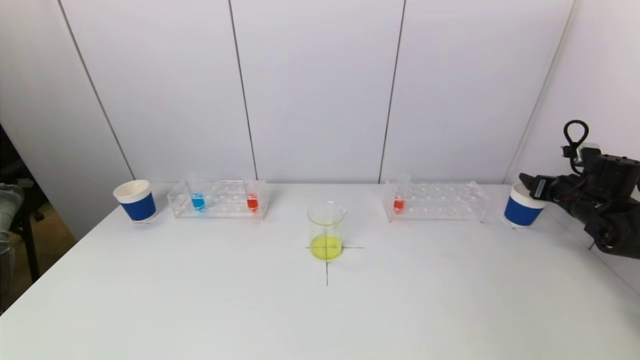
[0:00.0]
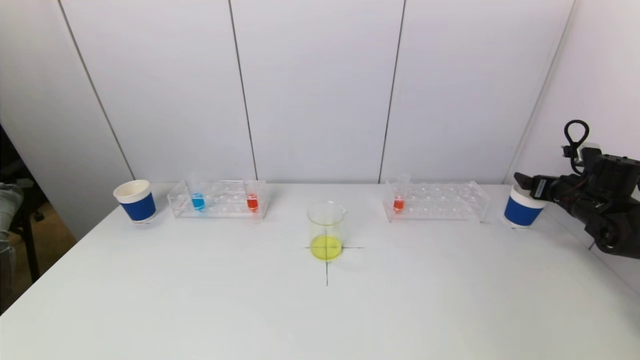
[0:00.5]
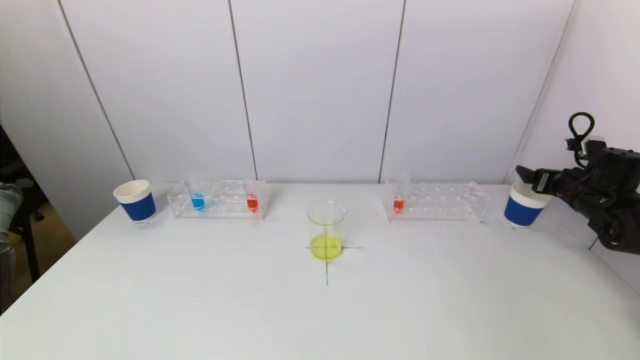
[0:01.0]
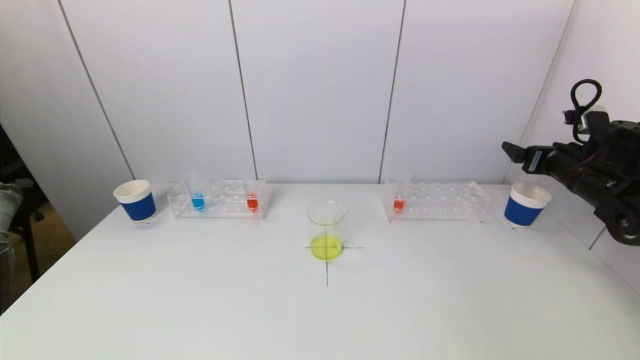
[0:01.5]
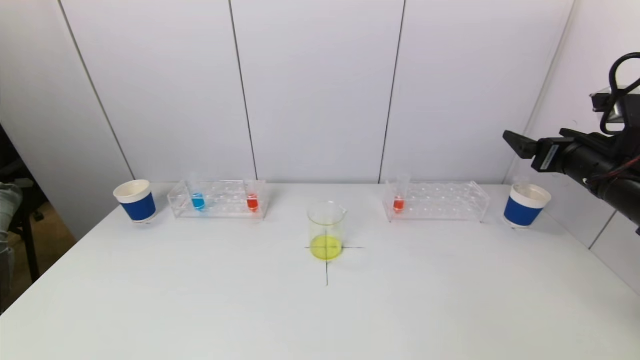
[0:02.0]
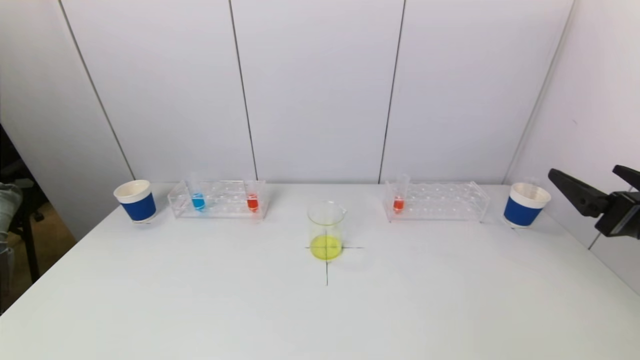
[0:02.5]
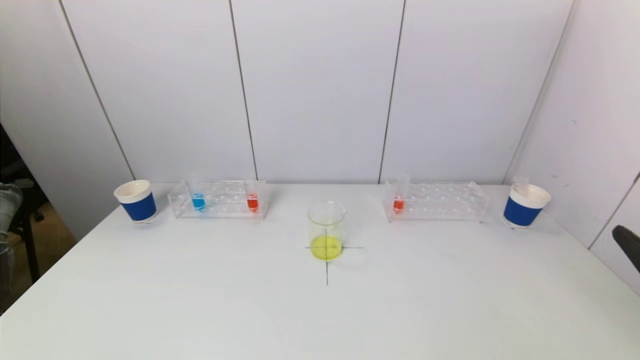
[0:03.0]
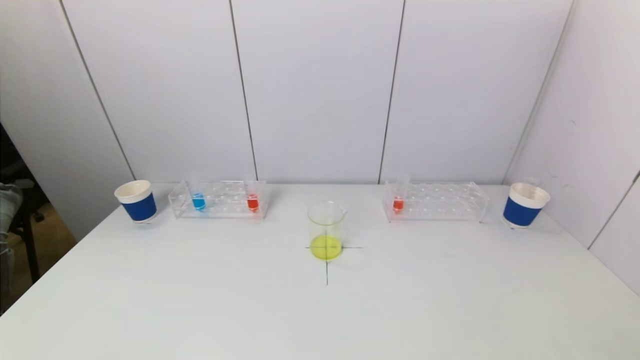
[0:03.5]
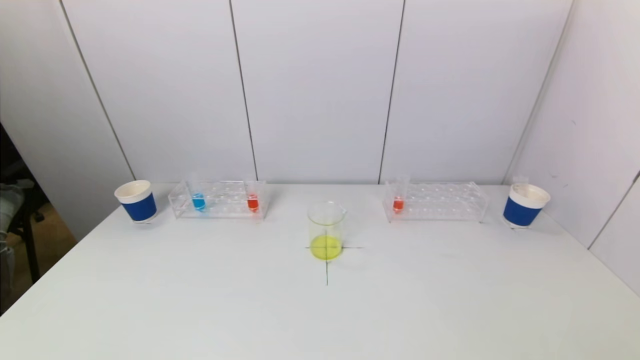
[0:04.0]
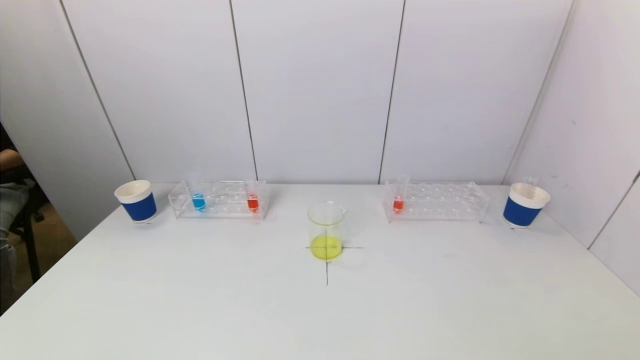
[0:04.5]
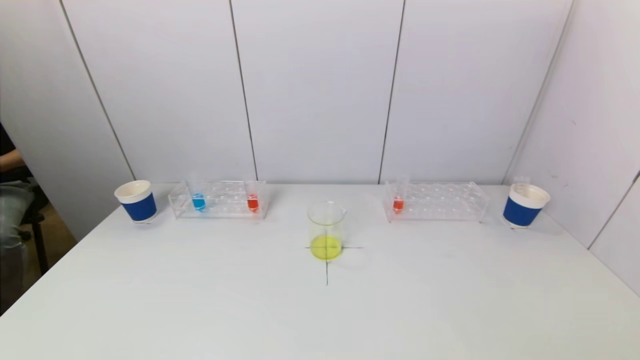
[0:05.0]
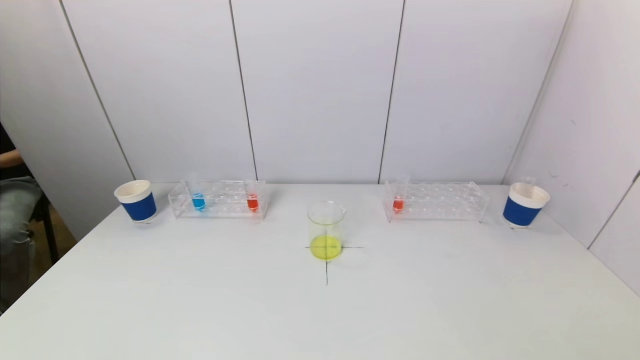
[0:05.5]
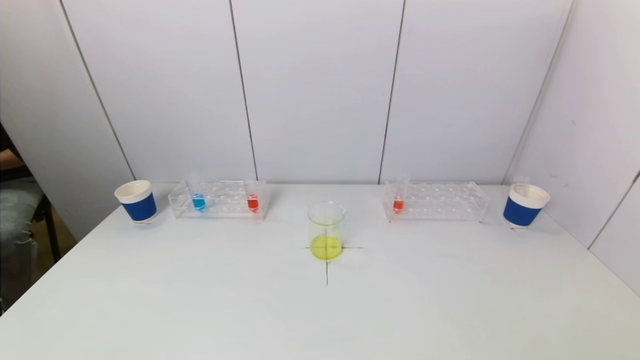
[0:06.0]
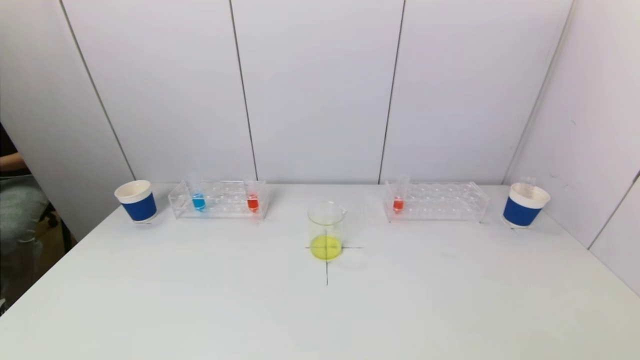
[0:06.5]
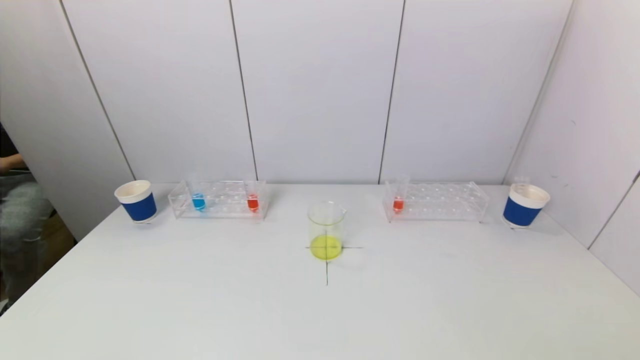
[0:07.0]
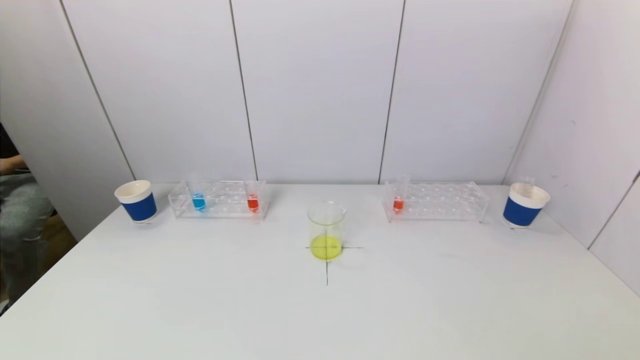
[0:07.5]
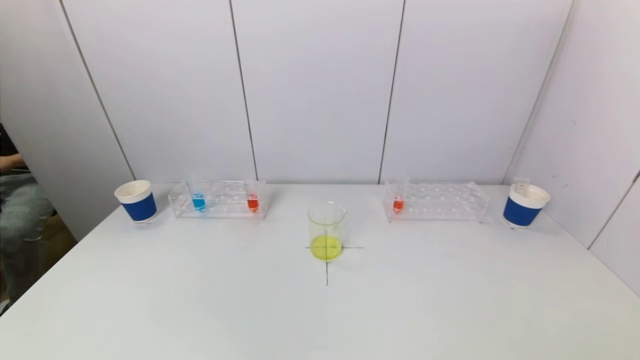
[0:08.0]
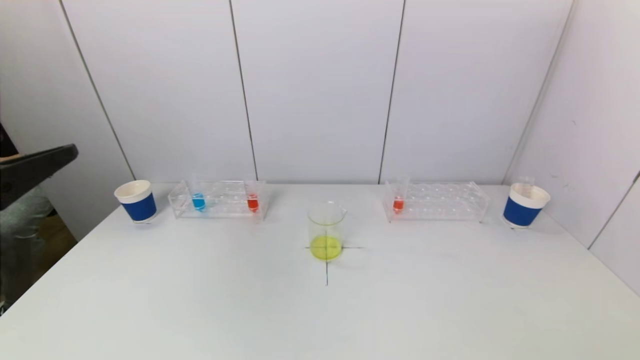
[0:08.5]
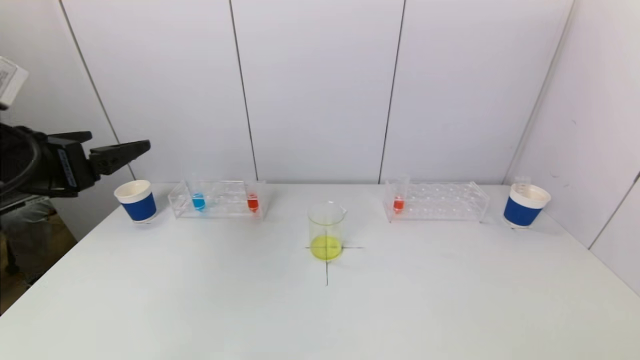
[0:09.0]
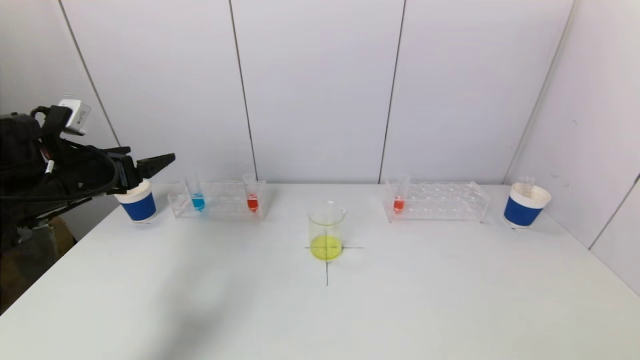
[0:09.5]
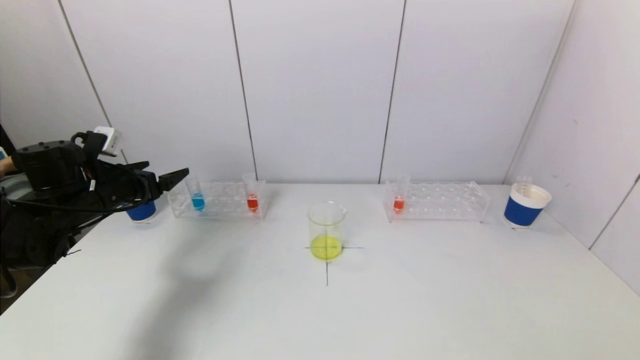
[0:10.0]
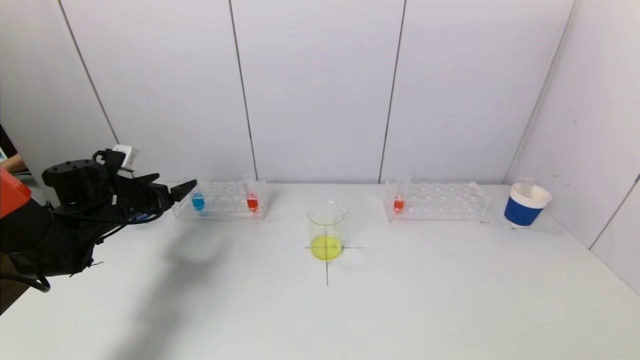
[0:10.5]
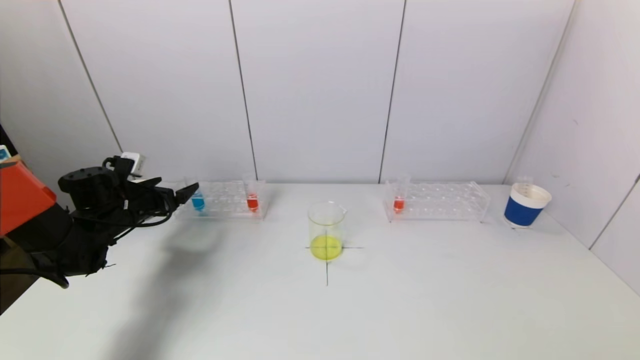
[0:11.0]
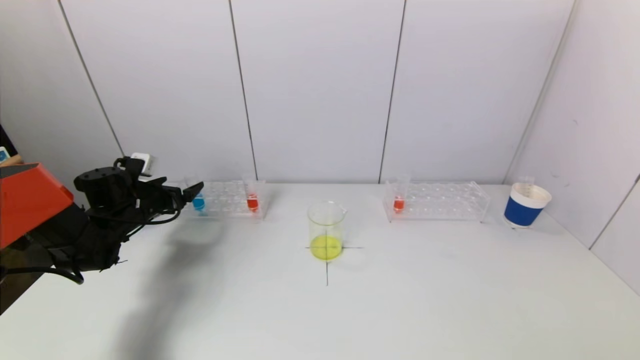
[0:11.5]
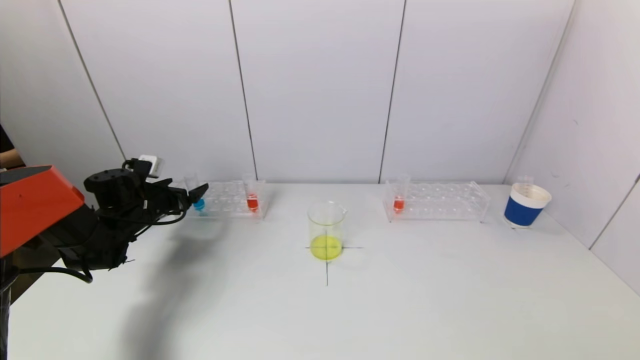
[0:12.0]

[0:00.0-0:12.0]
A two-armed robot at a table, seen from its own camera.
Task of the whole recording: pick up a test tube with pigment on left test tube rack and a test tube with pigment on right test tube rack by grippers and pour them into the beaker.
0:00.0 to 0:02.0: The right gripper shifts about 20 cm upward, to the left and backward.
0:02.0 to 0:04.0: The right gripper goes about 30 cm backward.
0:04.0 to 0:06.0: There are only small adjustments of the grippers.
0:06.0 to 0:08.0: The left gripper travels upward by about 20 cm.
0:08.0 to 0:10.0: The left gripper travels forward by roughly 35 cm.
0:10.0 to 0:12.0: The left gripper goes roughly 10 cm downward and forward.

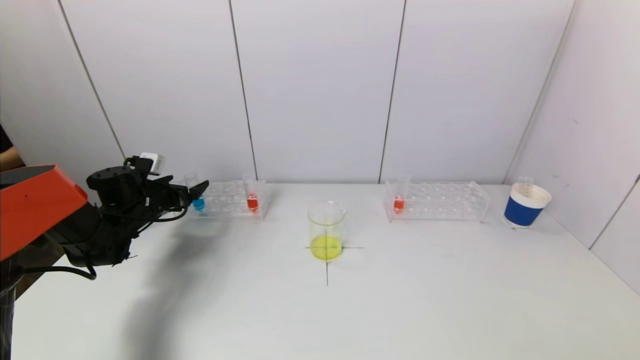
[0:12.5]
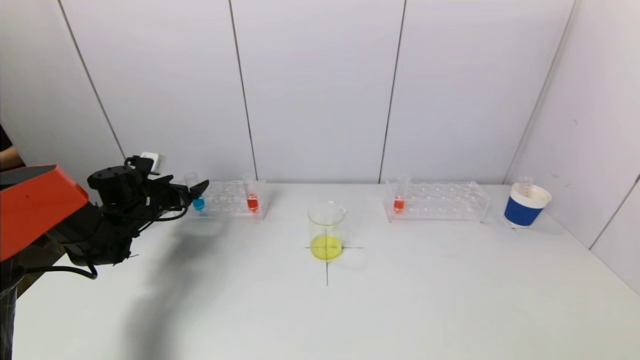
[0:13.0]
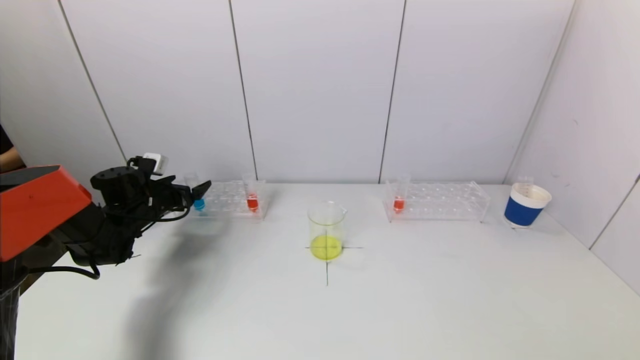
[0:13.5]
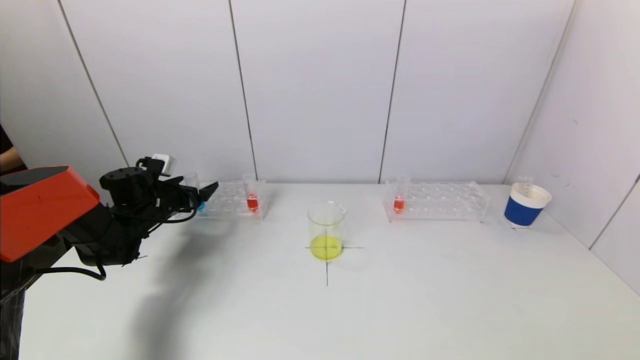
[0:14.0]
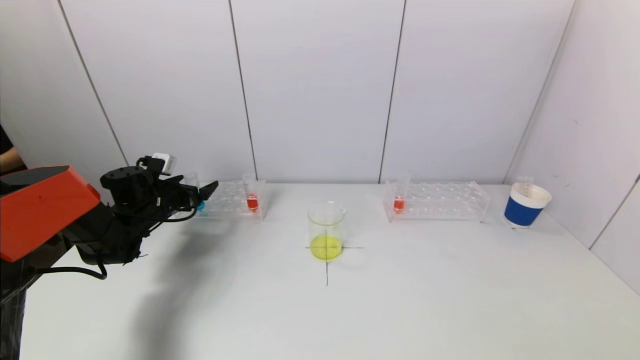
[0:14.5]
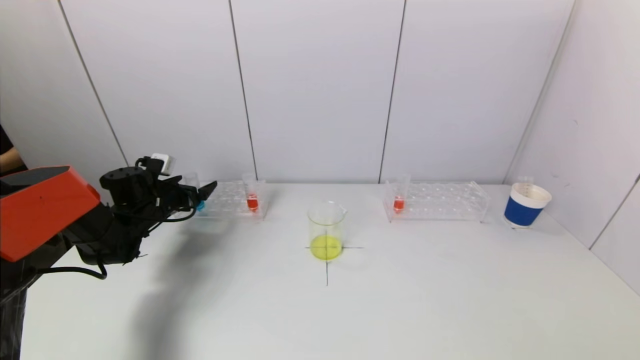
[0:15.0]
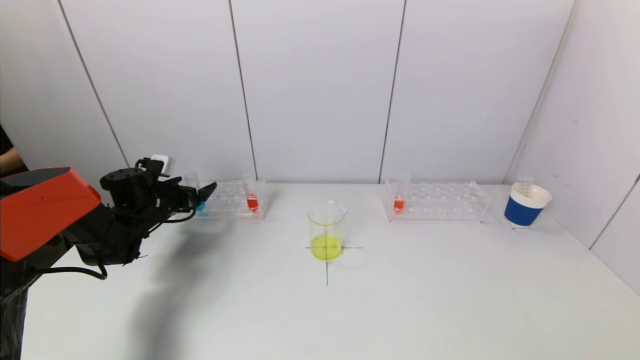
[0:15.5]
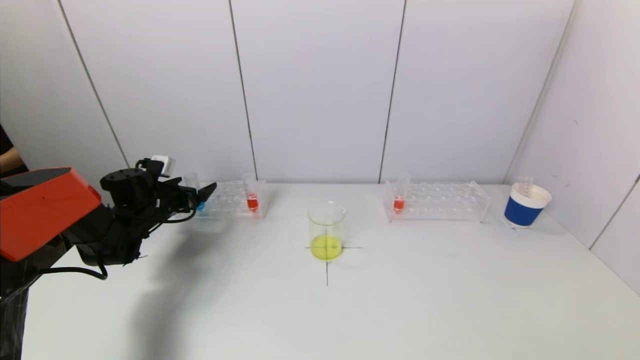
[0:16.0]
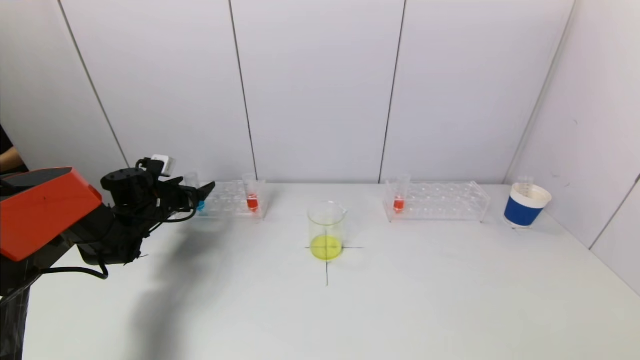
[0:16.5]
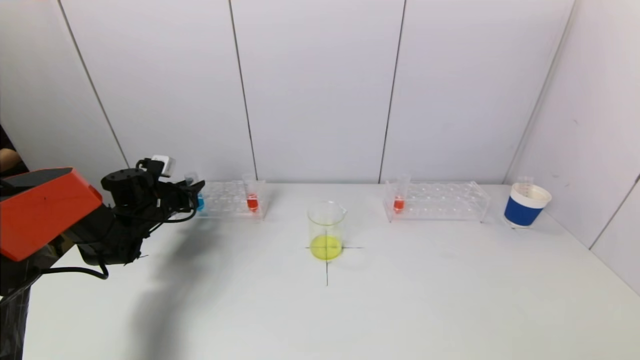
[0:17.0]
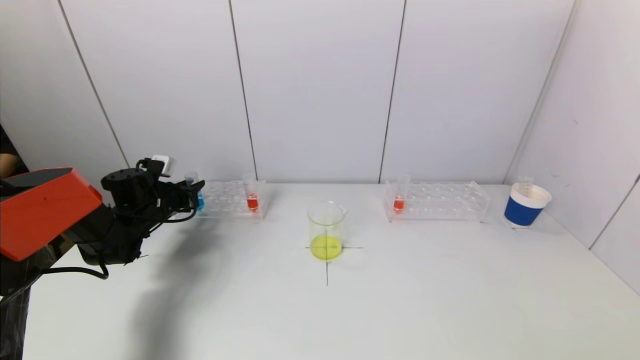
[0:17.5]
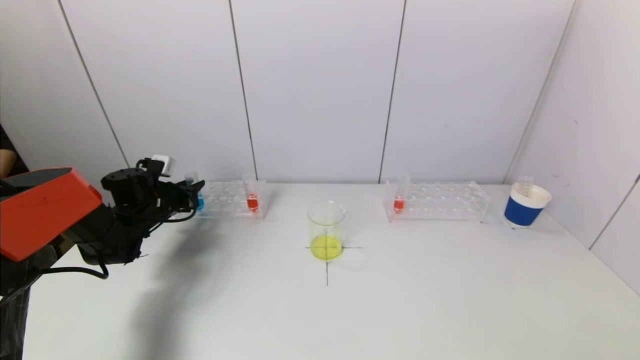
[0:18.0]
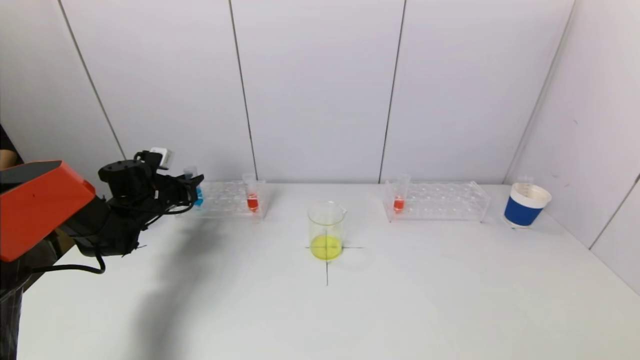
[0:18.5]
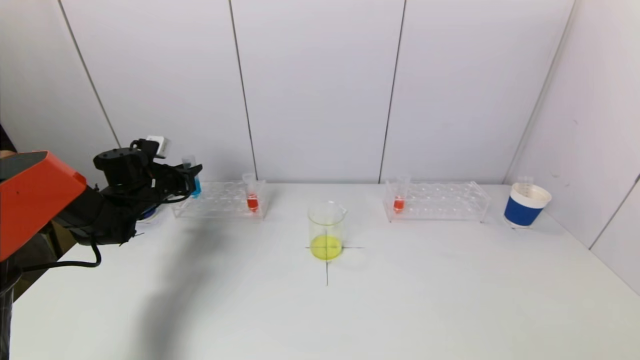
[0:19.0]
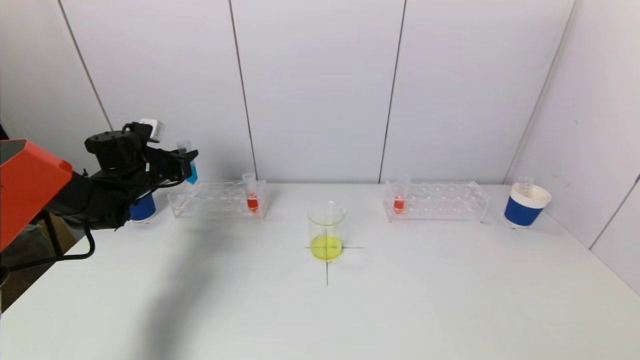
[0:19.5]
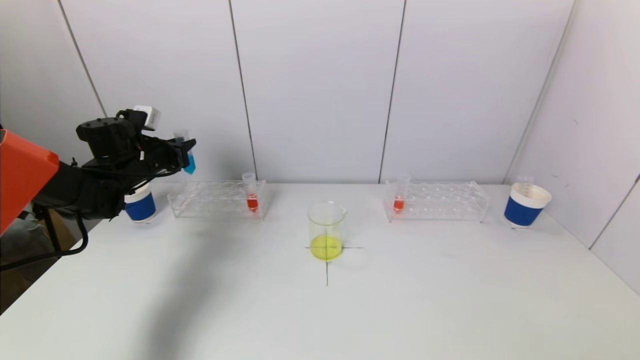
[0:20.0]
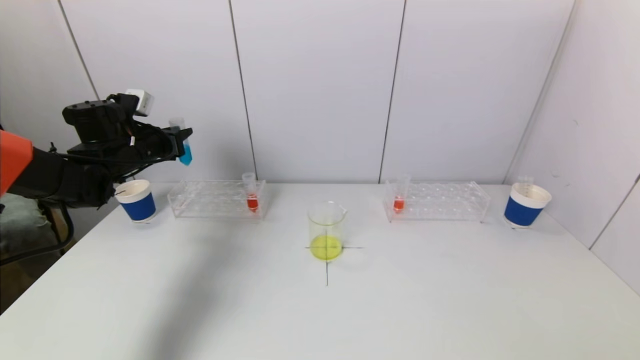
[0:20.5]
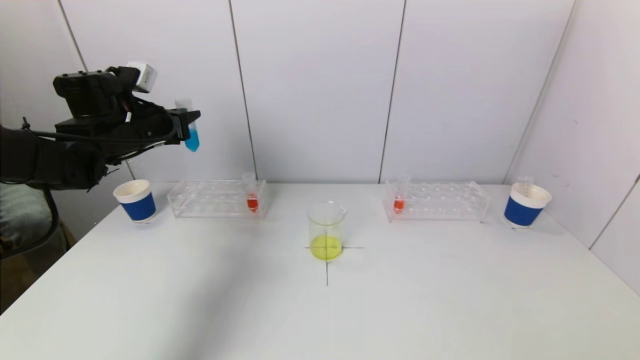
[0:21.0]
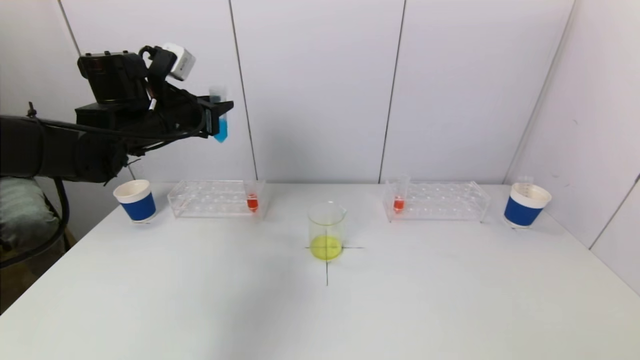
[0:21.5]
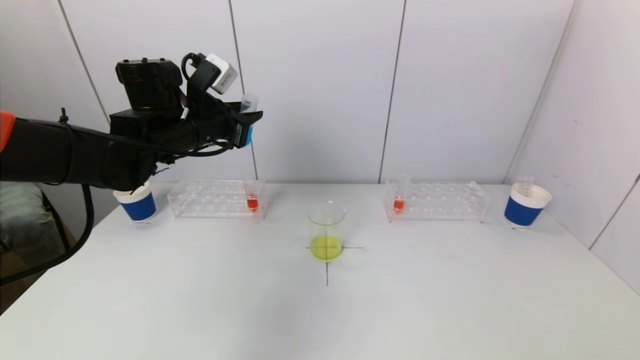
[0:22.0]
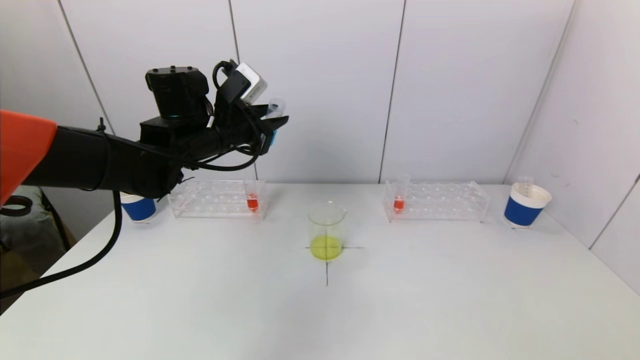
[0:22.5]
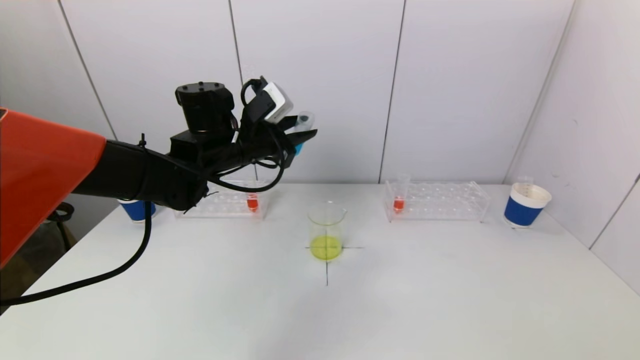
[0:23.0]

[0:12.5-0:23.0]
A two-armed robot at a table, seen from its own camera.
Task of the whole recording: pick up a test tube with pigment on left test tube rack and a test tube with pigment on right test tube rack by grippers and pour them into the beaker.
Step, 0:12.5 to 0:17.0: Grasp the blue reagent with the left gripper.
0:12.5 to 0:14.5: There are only small adjustments of the grippers.
0:14.5 to 0:16.5: The two grippers keep their place.
0:16.5 to 0:19.0: The left gripper closes up.
0:19.0 to 0:21.0: The left gripper goes roughly 15 cm upward.
0:21.0 to 0:23.0: The left gripper shifts roughly 15 cm to the right.
